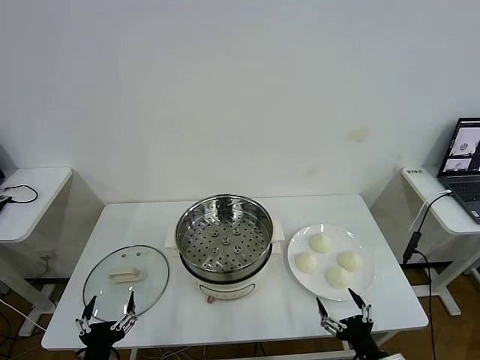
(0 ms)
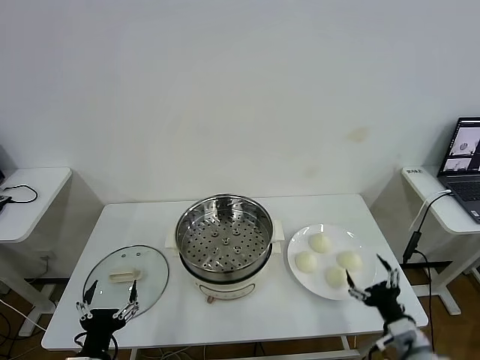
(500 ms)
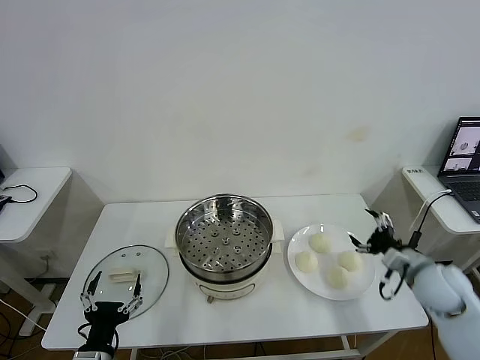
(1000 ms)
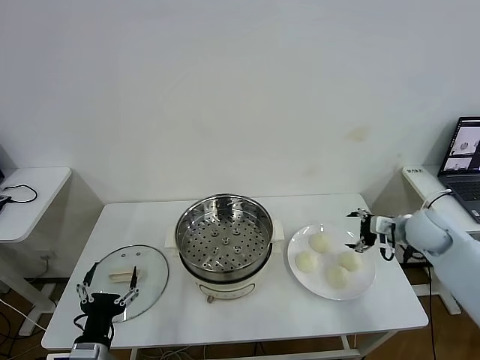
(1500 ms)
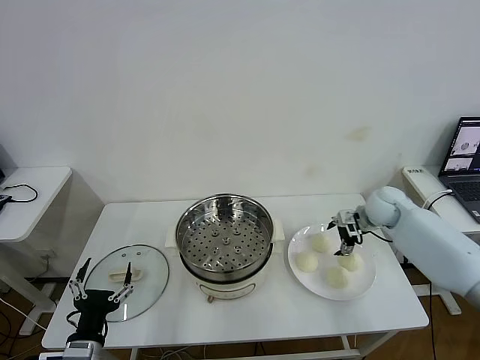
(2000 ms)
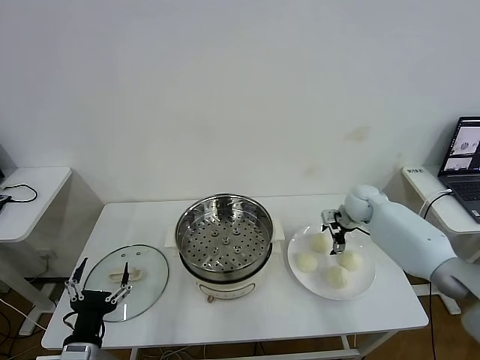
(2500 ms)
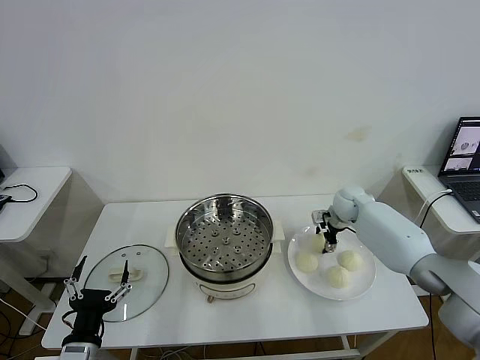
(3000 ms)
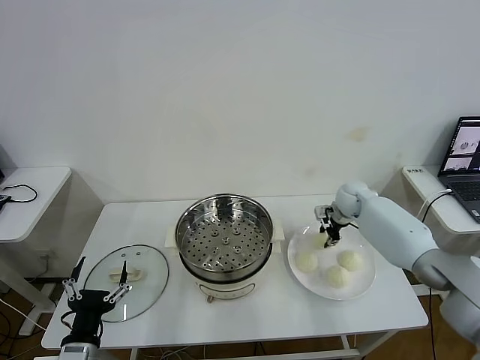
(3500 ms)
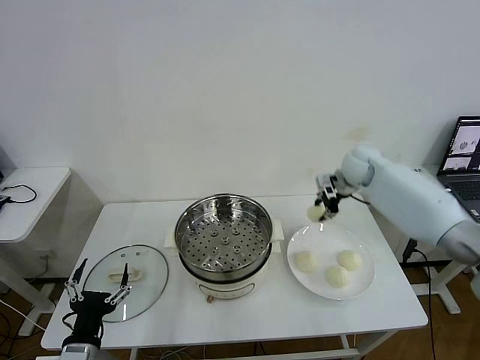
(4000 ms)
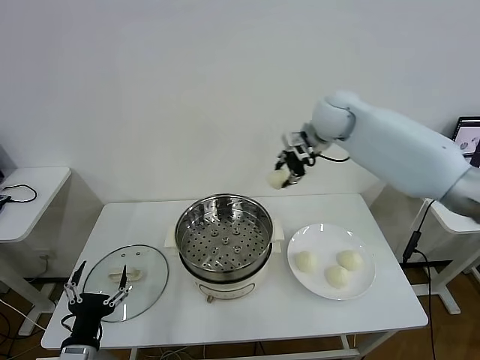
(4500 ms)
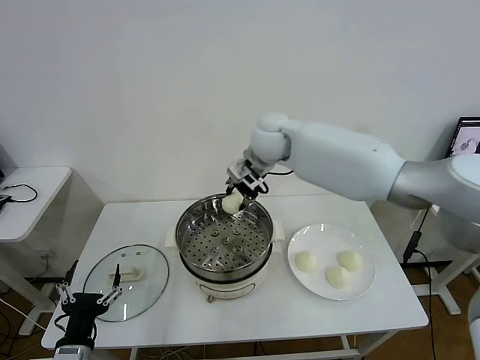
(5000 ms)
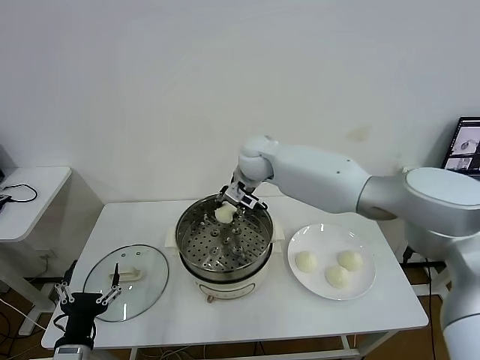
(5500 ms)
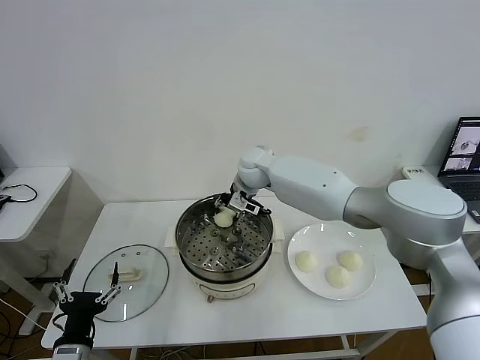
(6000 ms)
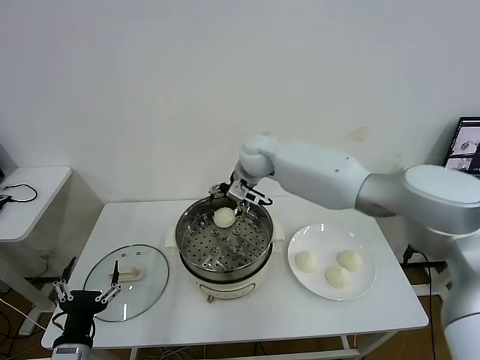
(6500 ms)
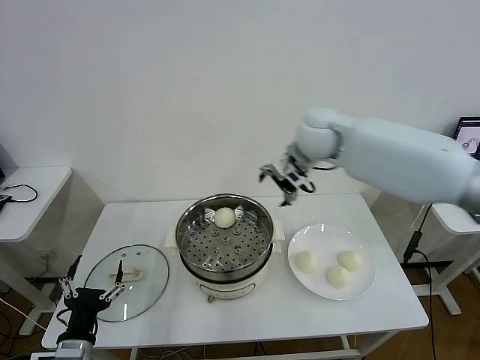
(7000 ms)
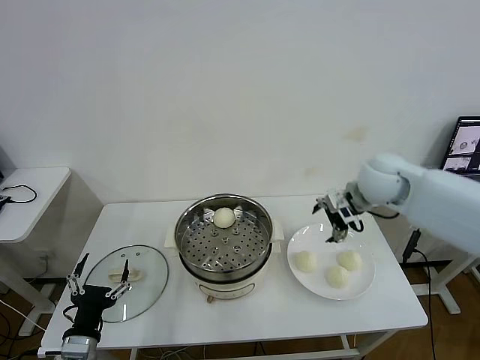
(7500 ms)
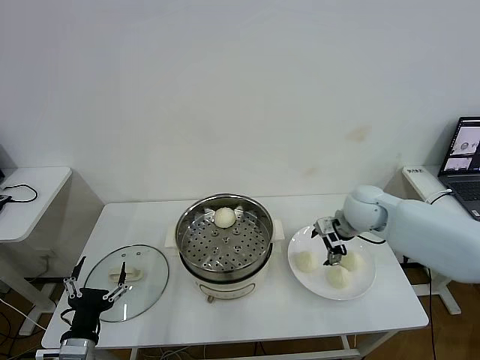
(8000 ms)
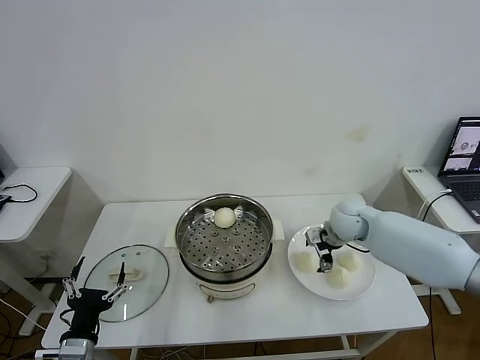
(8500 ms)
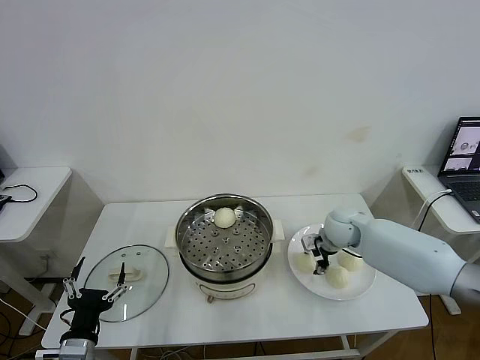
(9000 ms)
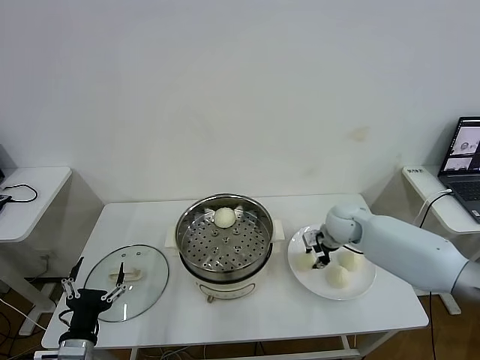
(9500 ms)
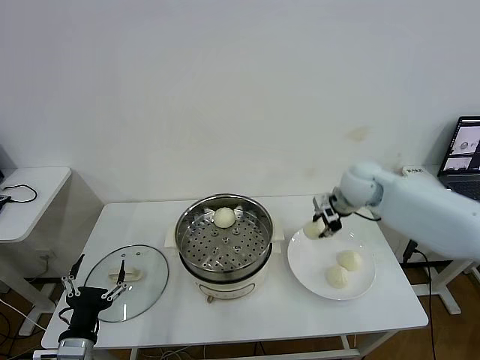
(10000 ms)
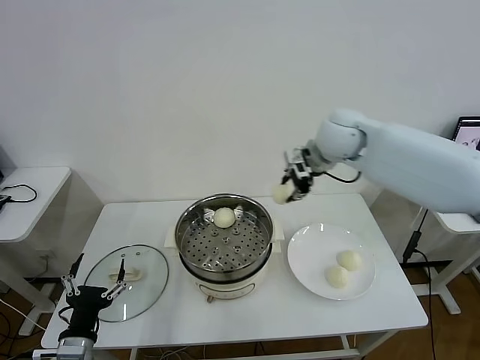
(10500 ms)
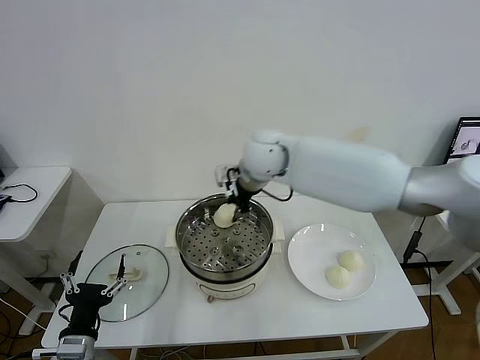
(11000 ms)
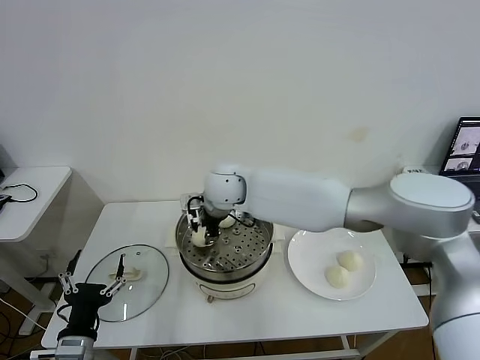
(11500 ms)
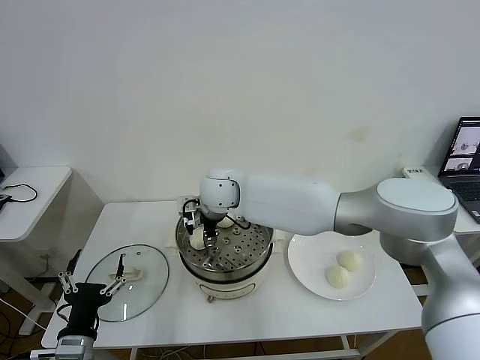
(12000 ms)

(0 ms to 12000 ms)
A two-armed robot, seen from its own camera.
Task of the whole recording: take steamed baozi put them in steamer then cover it.
Step, 0 ms - 3000 ms: Grasp the baozi in the plate with right gripper.
Step, 3500 ms - 6000 ms: Place the baozi on the steamer with right gripper.
Step, 6500 ms - 9000 ms: Grasp the baozi in the plate with right gripper.
2000 ms - 4000 ms: The right gripper moves upward, forward and to the left, some 15 cm, and closes up.
4000 ms - 6000 ms: The right gripper is displaced to the left by about 25 cm.
6000 ms - 8000 ms: The right gripper goes approximately 25 cm to the right and backward, and opens up.
8000 ms - 10000 ms: The right gripper ends up about 5 cm from where it was, and closes its fingers.
10000 ms - 12000 ms: The right gripper travels to the left by approximately 30 cm, and opens.

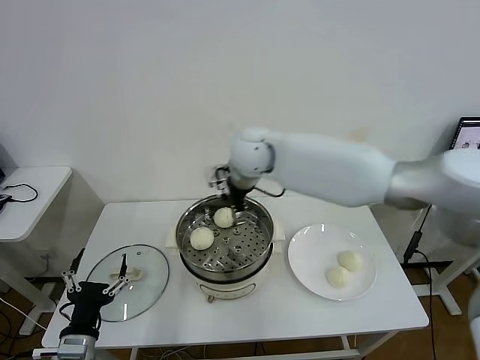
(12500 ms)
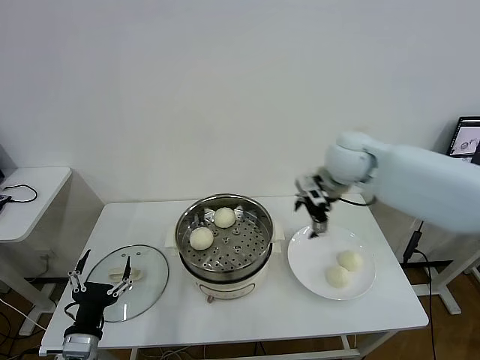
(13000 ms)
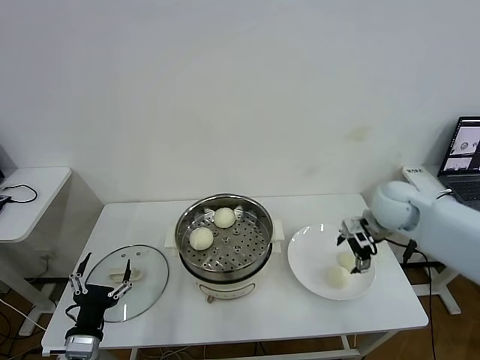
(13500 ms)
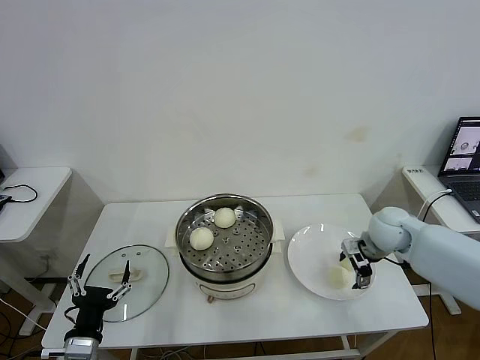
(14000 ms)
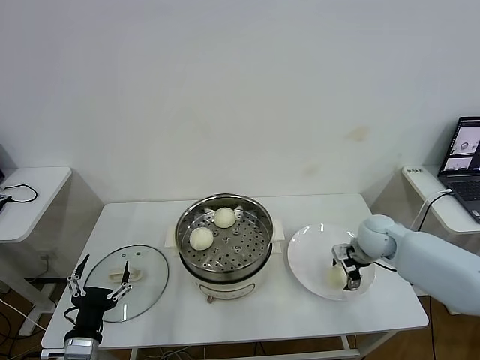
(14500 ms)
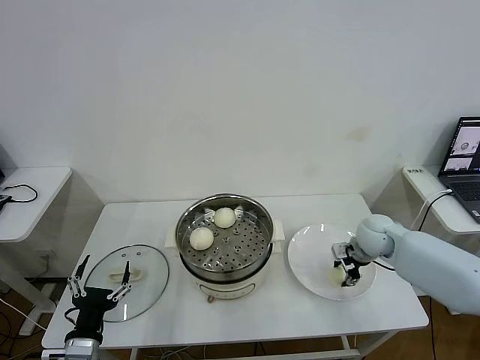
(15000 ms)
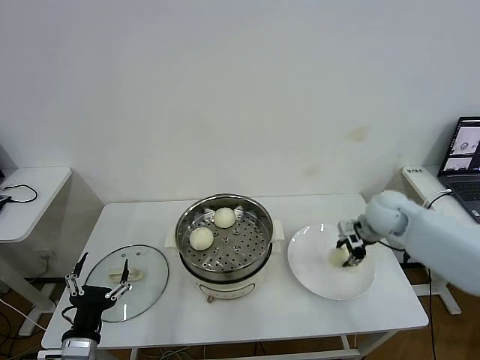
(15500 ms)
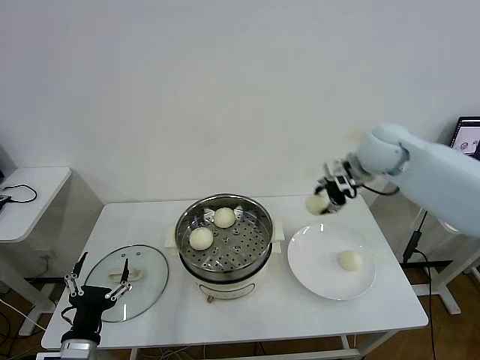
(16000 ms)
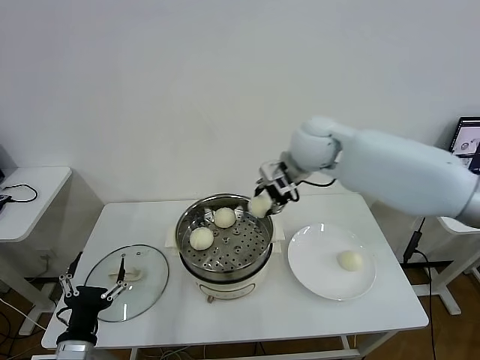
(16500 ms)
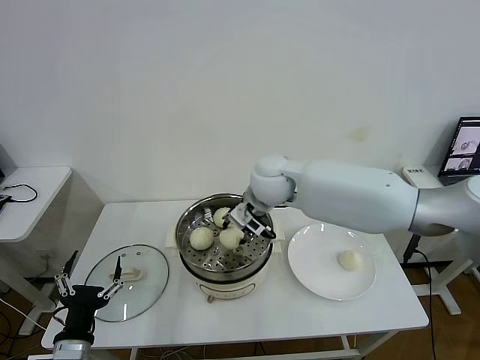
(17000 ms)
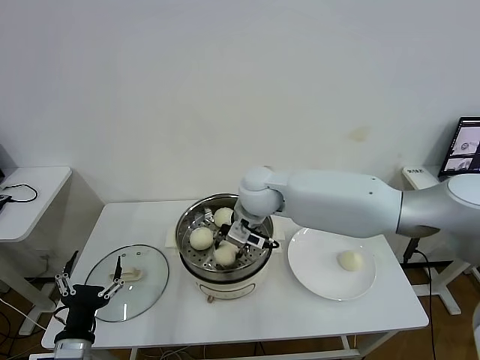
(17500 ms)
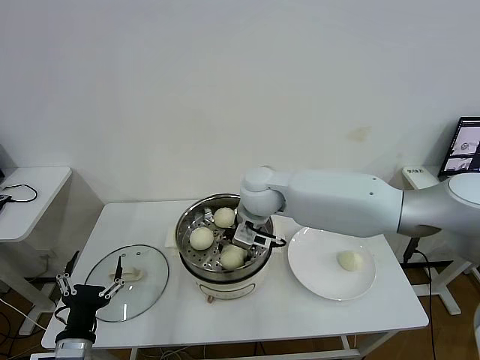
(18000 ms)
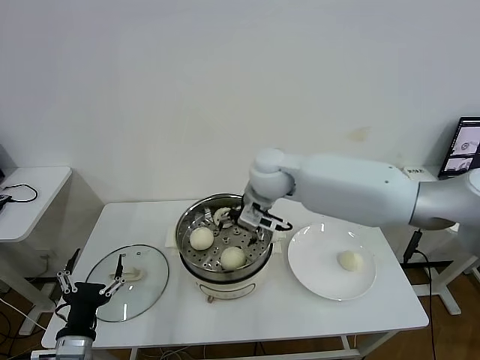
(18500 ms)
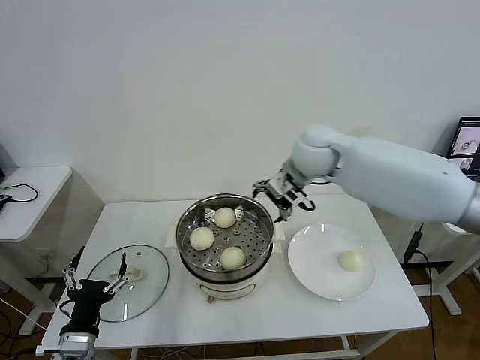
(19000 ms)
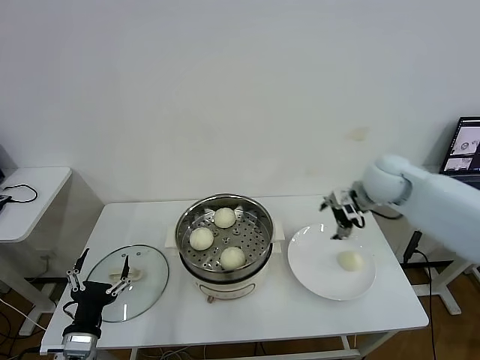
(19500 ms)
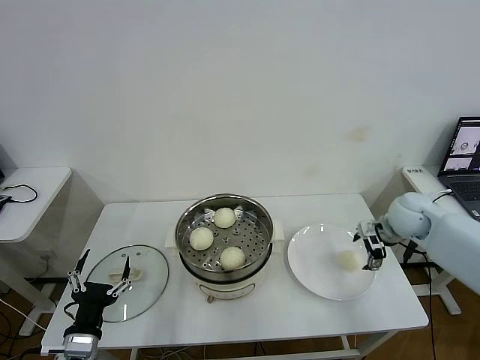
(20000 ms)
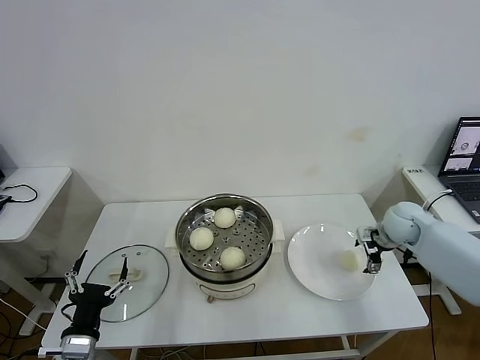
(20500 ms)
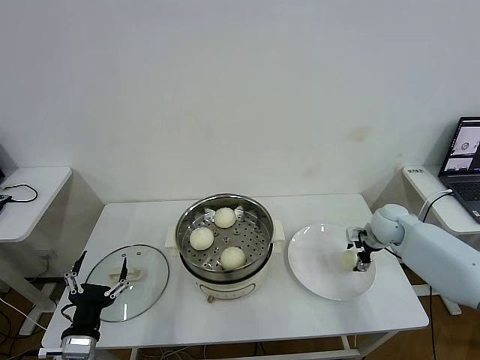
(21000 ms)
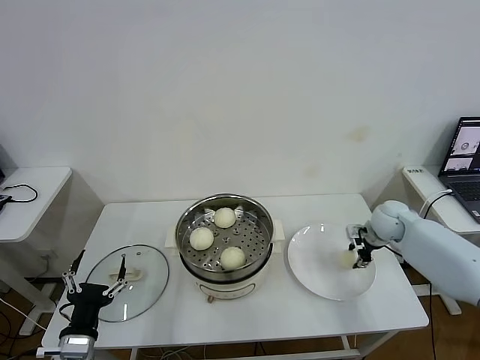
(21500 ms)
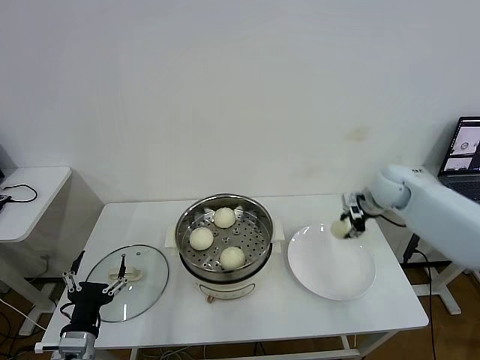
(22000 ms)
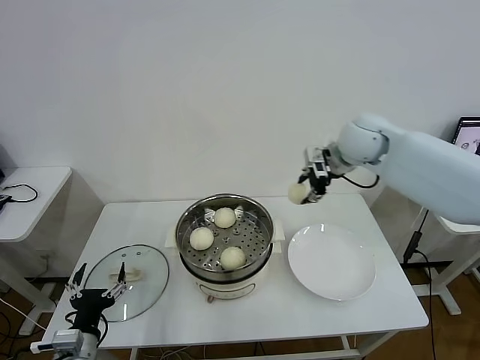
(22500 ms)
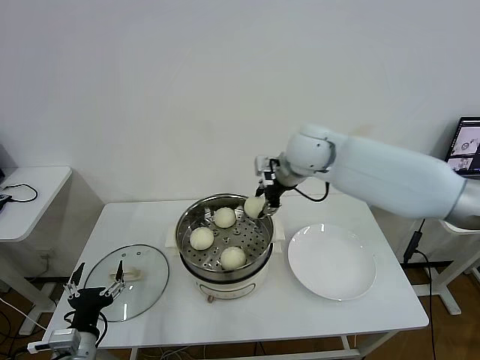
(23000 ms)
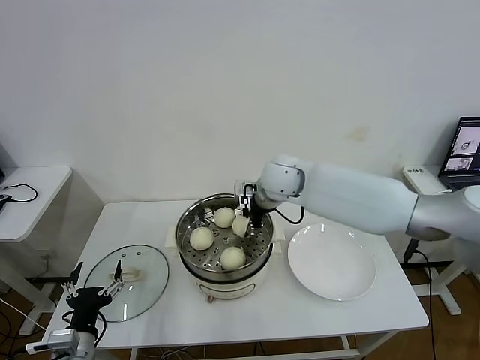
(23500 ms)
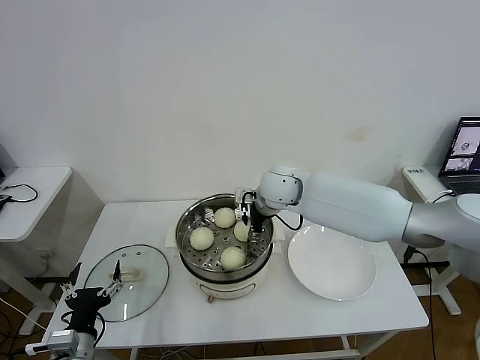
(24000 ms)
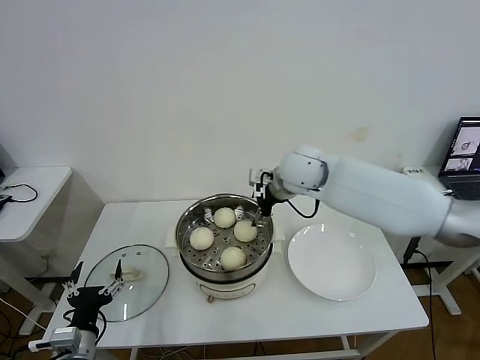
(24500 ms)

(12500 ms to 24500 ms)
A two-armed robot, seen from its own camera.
Task of the whole recording: take steamed baozi put them in steamer then cover it.
Step, 12500 ms - 14500 ms: Grasp the baozi in the plate with right gripper.
Step, 15000 ms - 18000 ms: Place the baozi on the steamer with right gripper.
Step, 18500 ms - 21000 ms: Grasp the baozi in the plate with right gripper.
Step, 21500 ms - 24000 ms: Place the baozi on the steamer with right gripper.
12500 ms - 14500 ms: The right gripper travels to the right and downward by roughly 35 cm.
14500 ms - 16500 ms: The right gripper travels upward and to the left by about 30 cm, and closes.
16500 ms - 18500 ms: The right gripper shifts approximately 10 cm to the left and downward, and opens up.
18500 ms - 20500 ms: The right gripper travels to the right and downward by approximately 35 cm.
20500 ms - 22500 ms: The right gripper travels upward and to the left by roughly 25 cm, and closes its fingers.
22500 ms - 24500 ms: The right gripper heads to the left and downward, covering some 15 cm, and opens up.

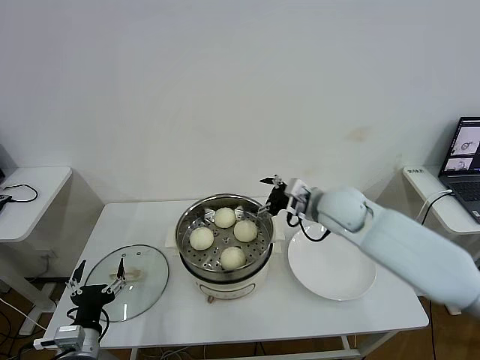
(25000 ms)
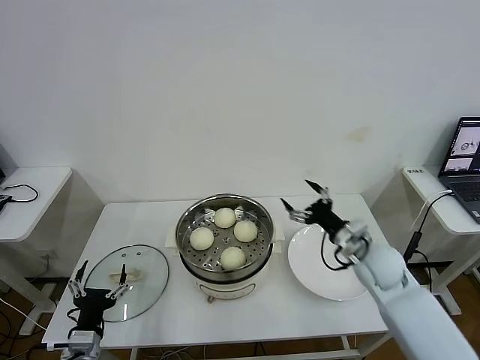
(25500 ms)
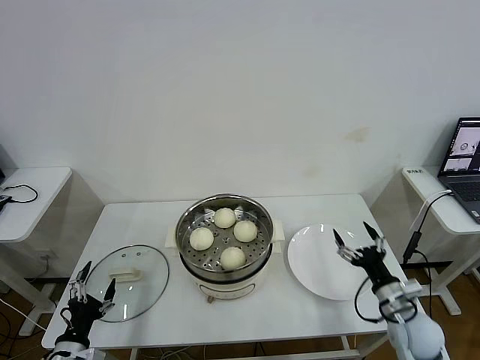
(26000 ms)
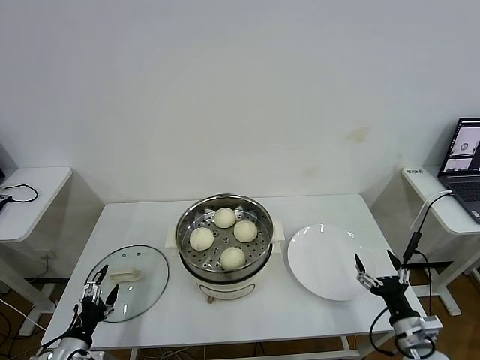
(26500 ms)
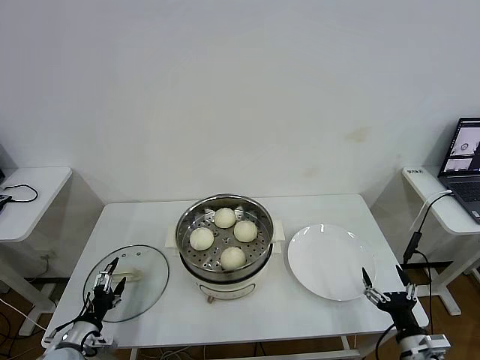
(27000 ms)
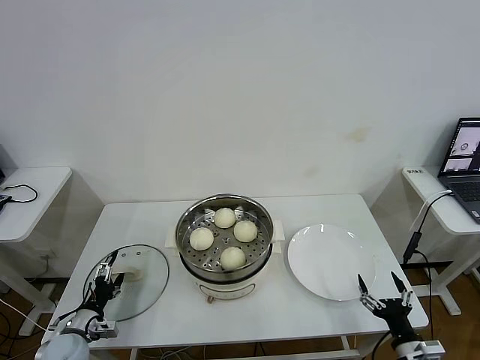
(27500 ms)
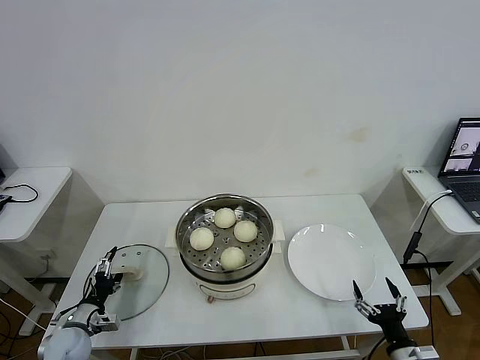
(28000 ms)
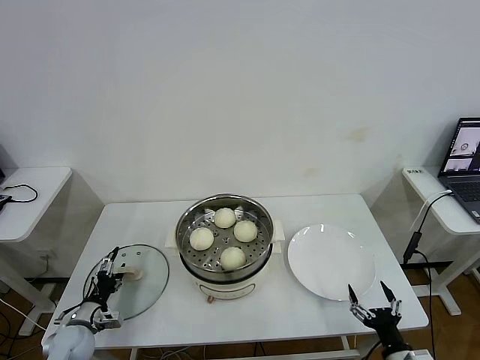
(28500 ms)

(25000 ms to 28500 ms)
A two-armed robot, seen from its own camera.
Task of the whole recording: take steamed baozi put them in steamer then cover it.
25000 ms - 27000 ms: The right gripper heads backward, downward and to the right, covering approximately 40 cm, while the left gripper is displaced to the left and downward by roughly 10 cm.
27000 ms - 28500 ms: The left gripper is displaced forward by approximately 5 cm.
